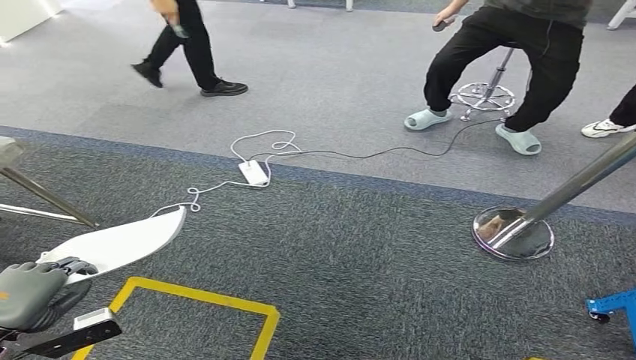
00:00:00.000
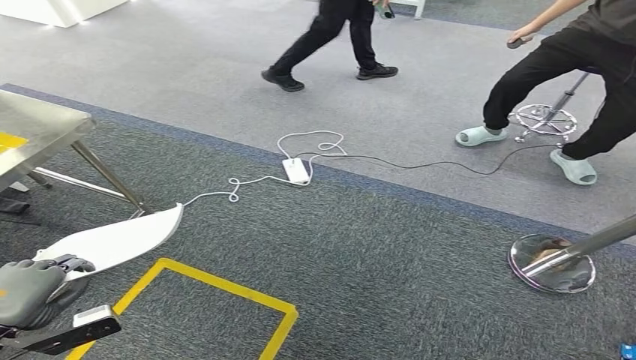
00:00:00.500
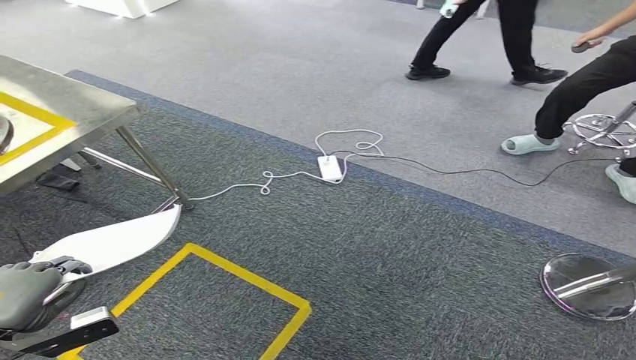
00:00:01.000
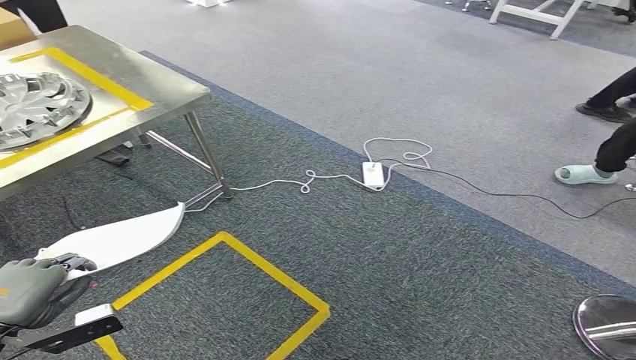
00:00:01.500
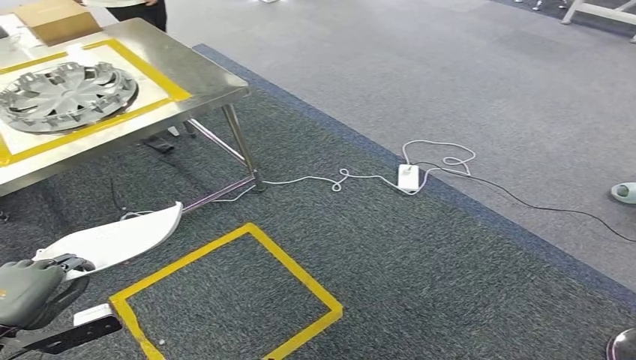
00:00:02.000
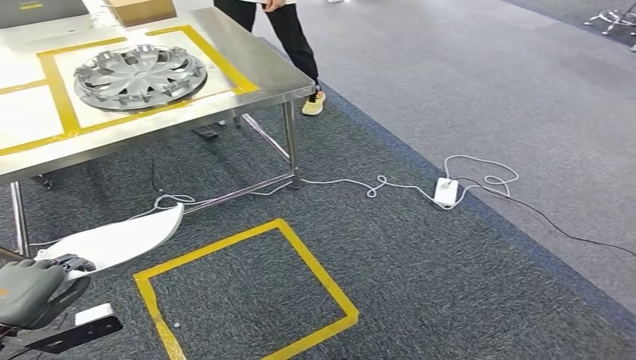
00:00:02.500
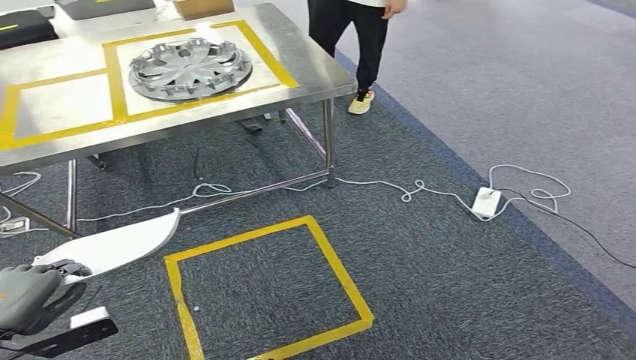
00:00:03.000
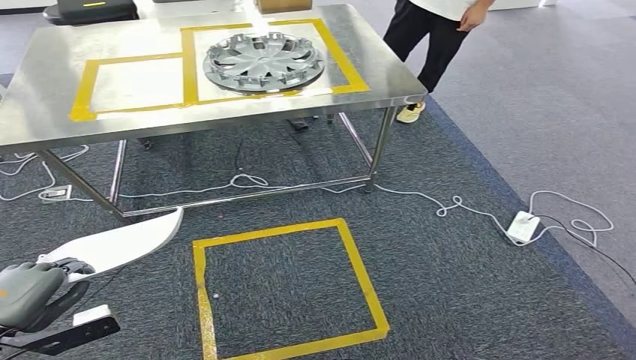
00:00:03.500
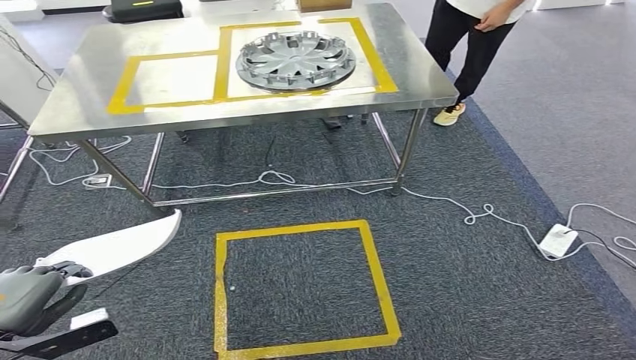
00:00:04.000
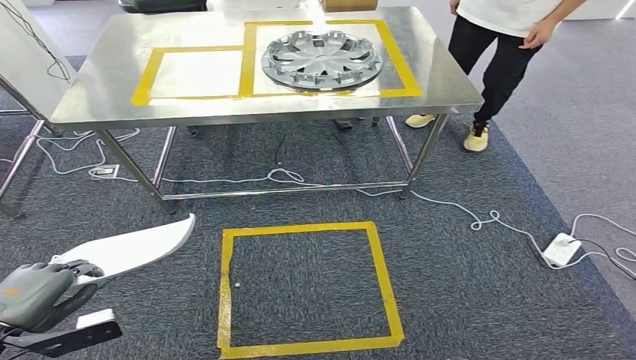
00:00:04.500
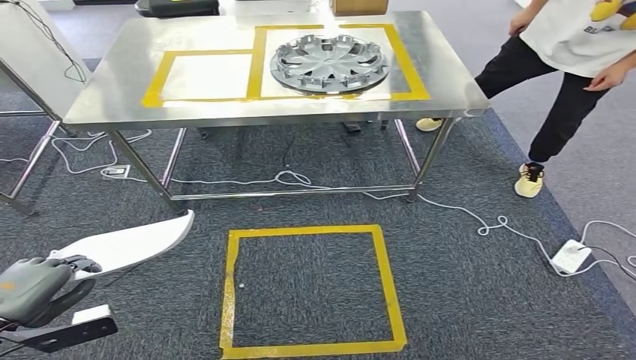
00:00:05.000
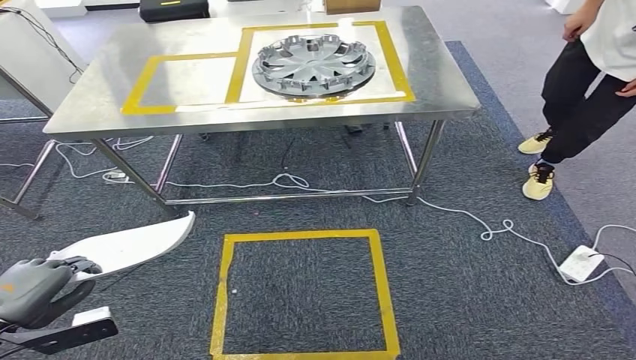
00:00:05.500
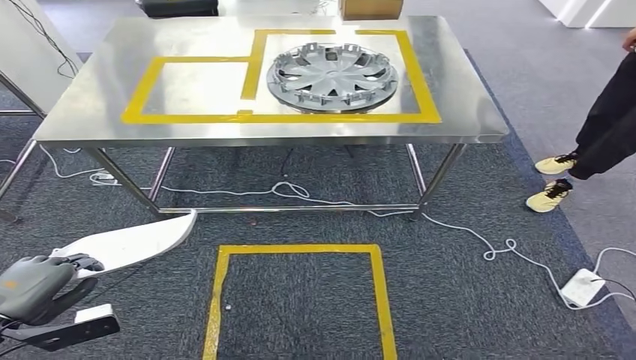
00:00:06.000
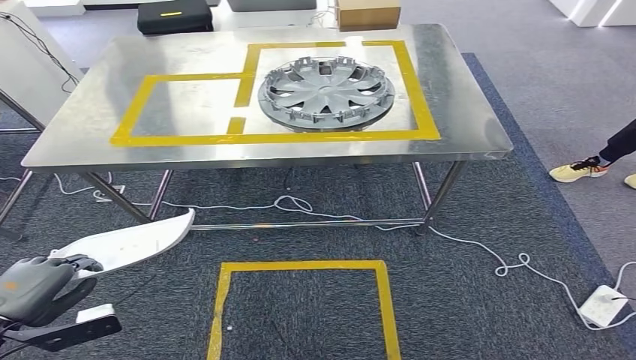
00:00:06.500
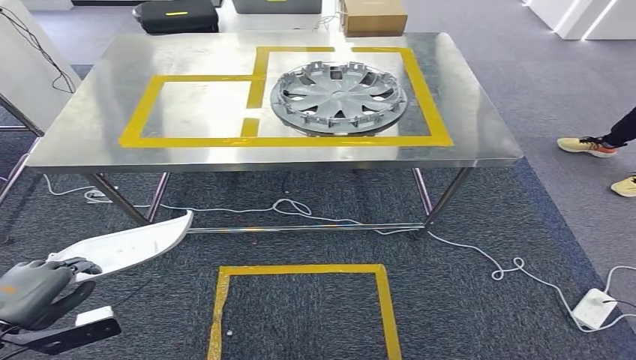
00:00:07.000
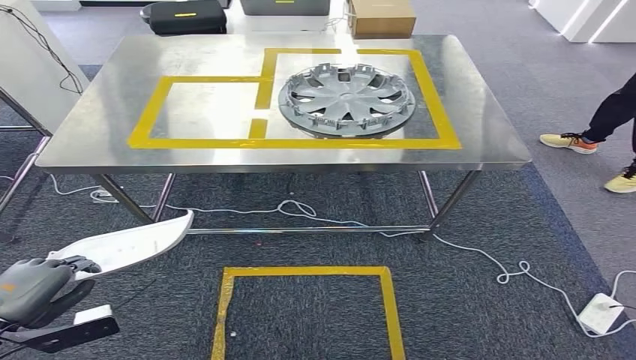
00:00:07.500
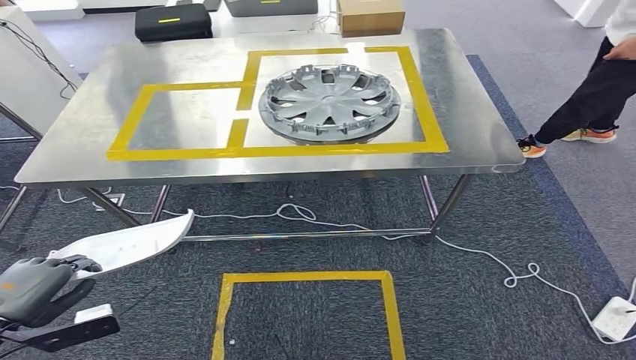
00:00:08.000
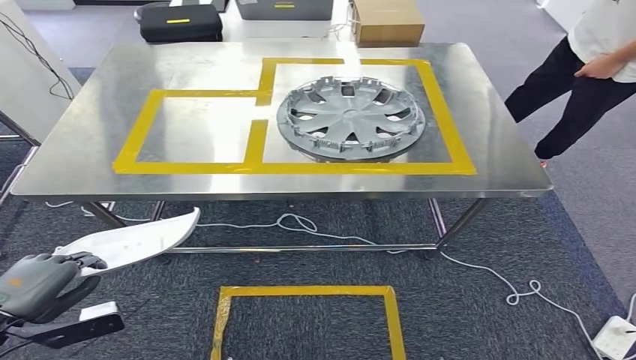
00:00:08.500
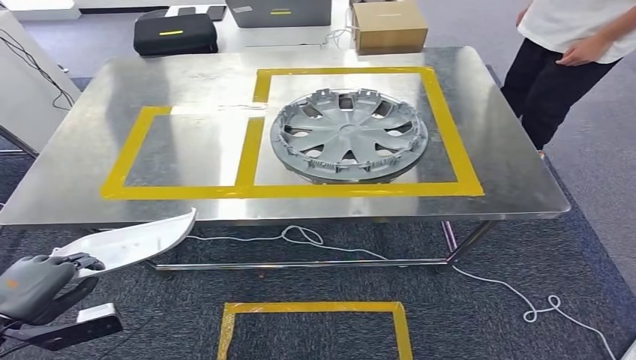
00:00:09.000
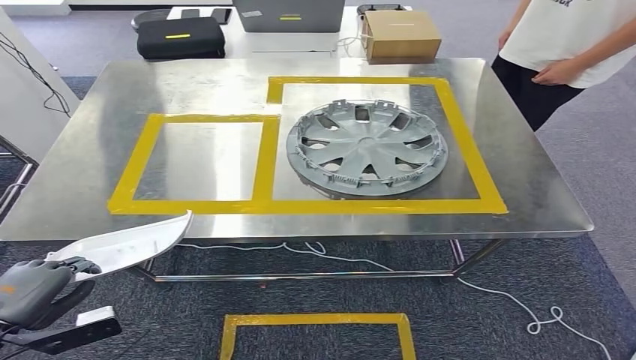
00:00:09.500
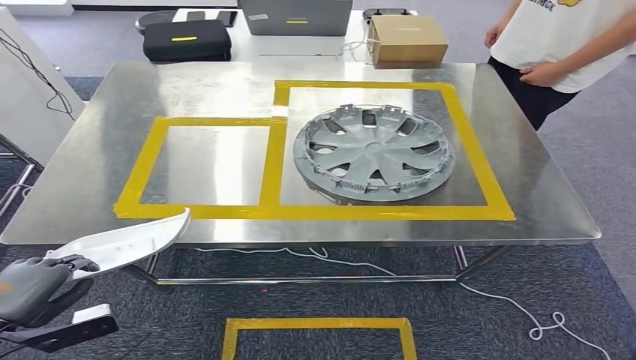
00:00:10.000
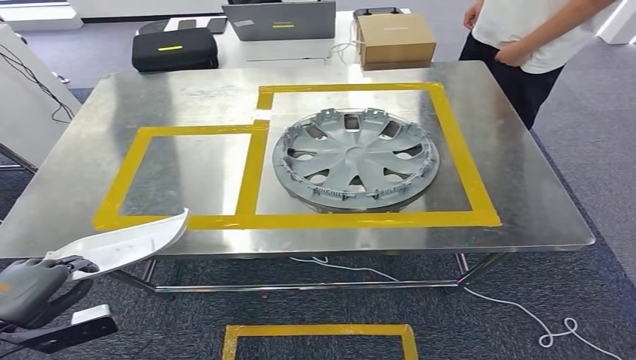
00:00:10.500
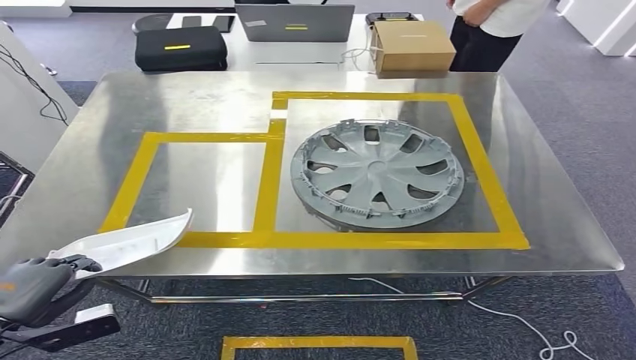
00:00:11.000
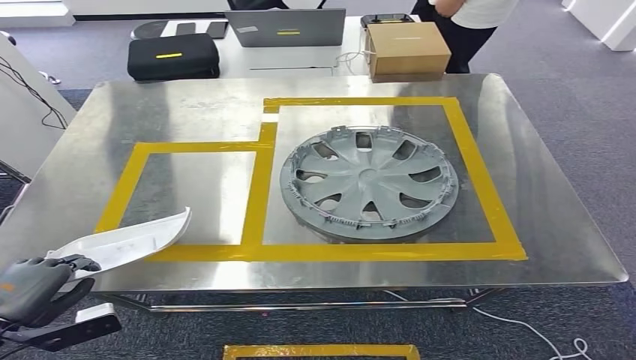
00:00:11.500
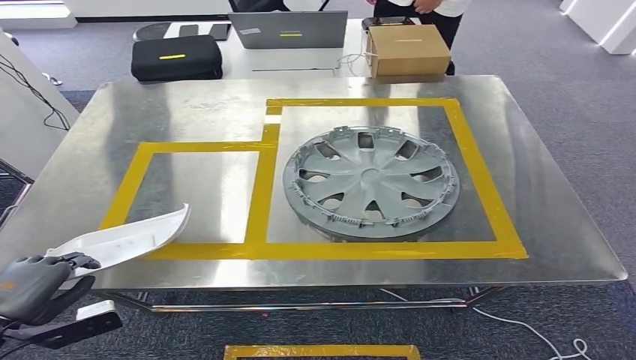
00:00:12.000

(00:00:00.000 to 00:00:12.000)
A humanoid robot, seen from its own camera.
Step, 00:00:00.000 - 00:00:11.000: Move the small component to the workbench.

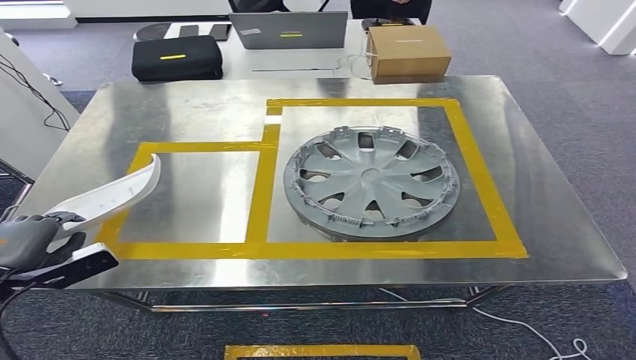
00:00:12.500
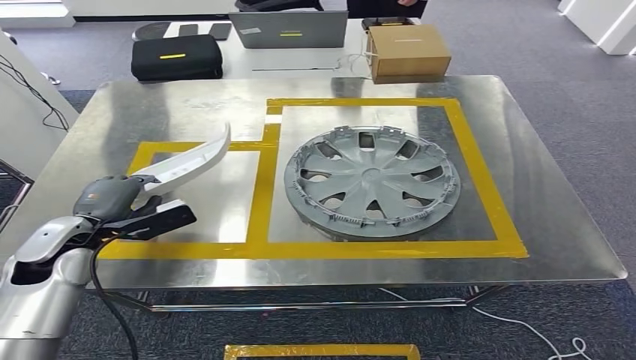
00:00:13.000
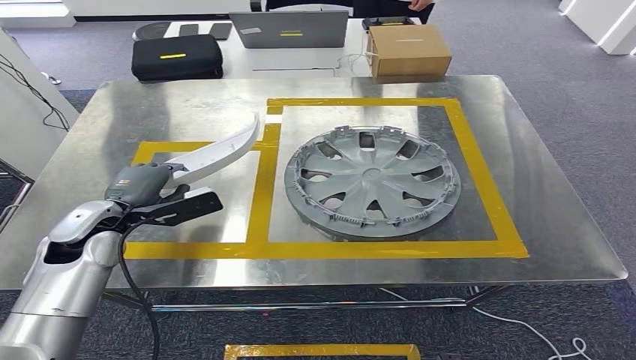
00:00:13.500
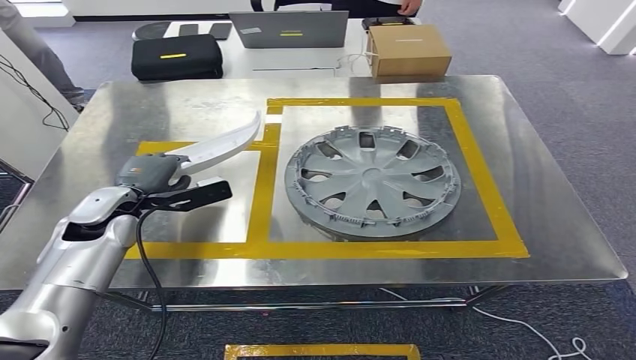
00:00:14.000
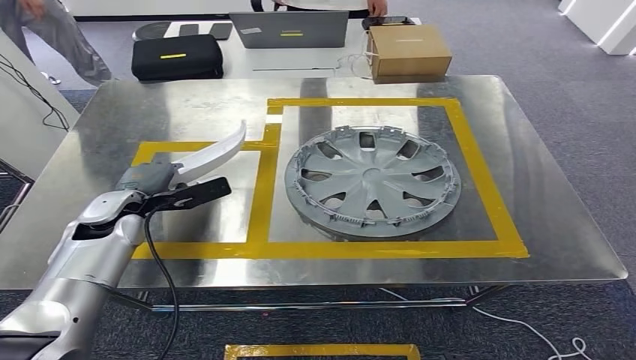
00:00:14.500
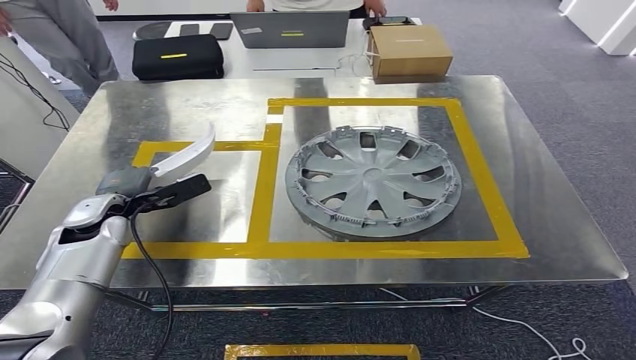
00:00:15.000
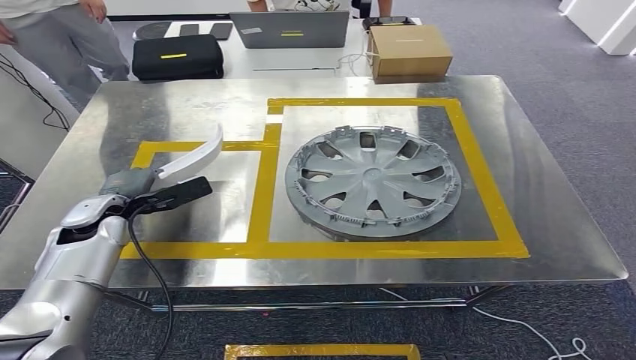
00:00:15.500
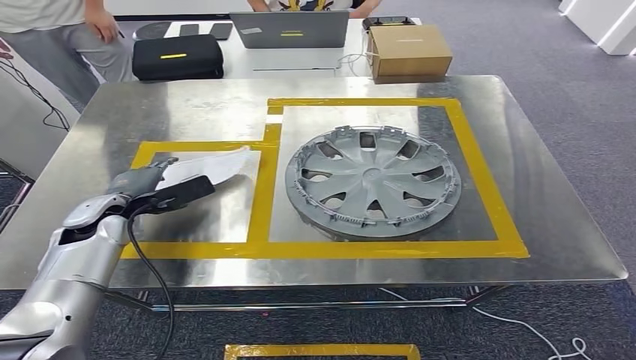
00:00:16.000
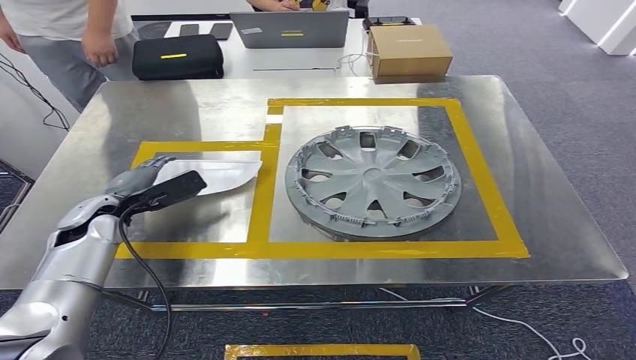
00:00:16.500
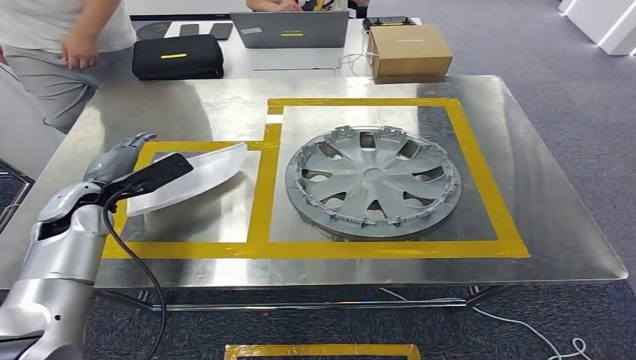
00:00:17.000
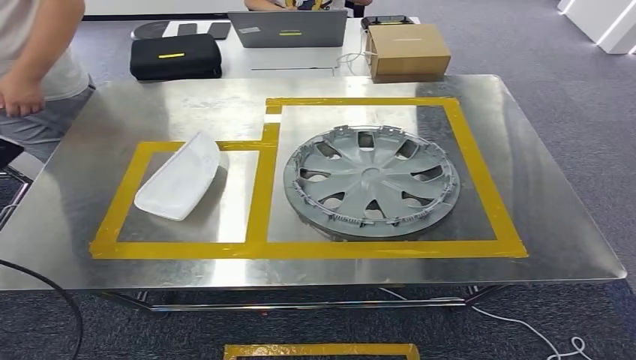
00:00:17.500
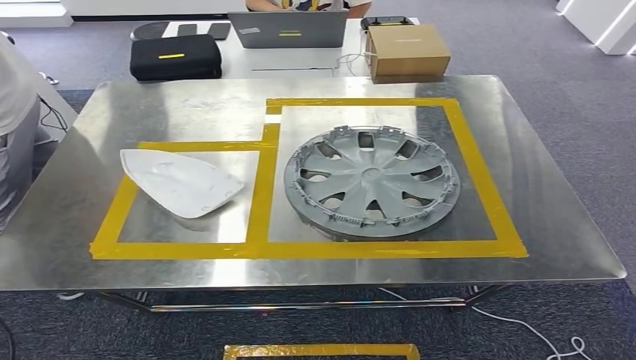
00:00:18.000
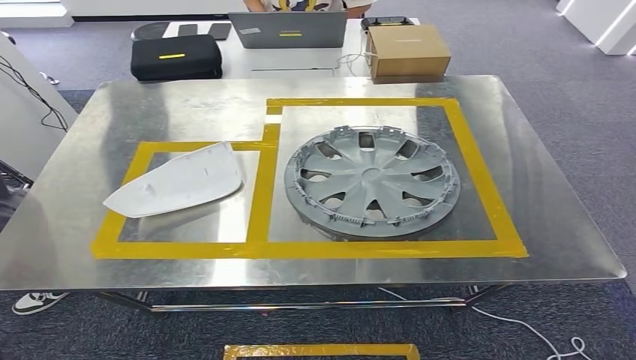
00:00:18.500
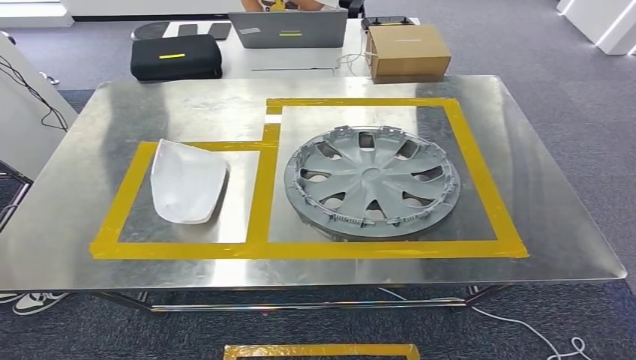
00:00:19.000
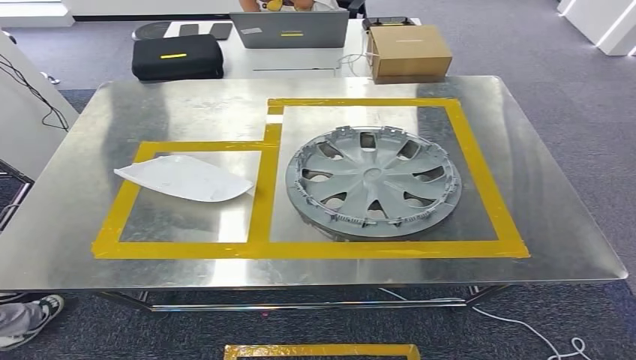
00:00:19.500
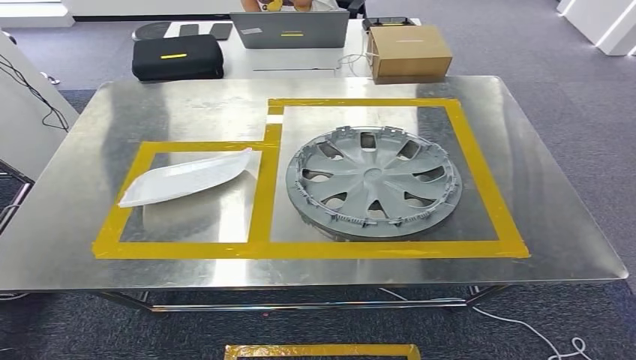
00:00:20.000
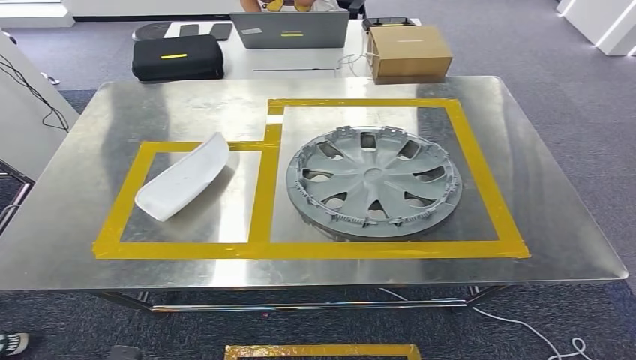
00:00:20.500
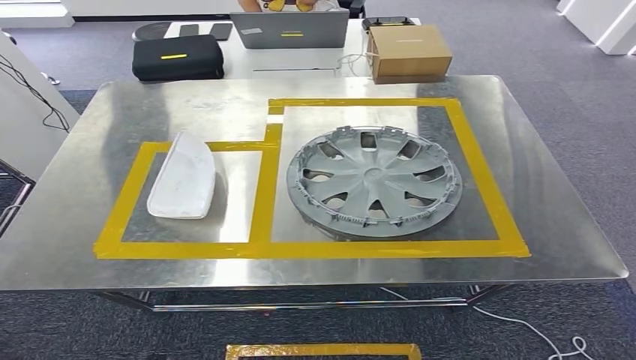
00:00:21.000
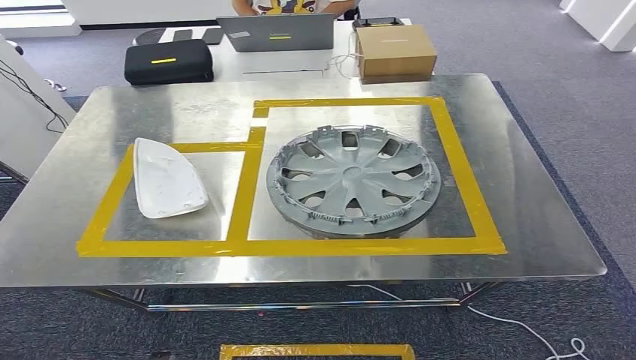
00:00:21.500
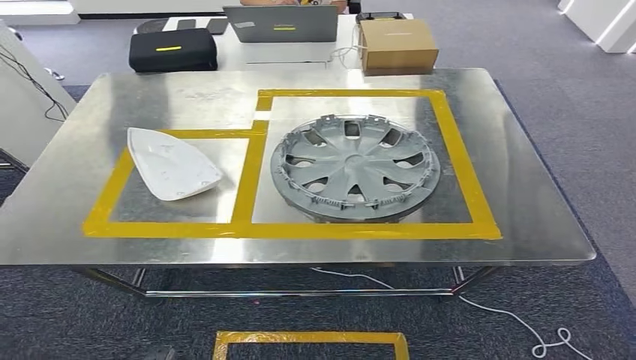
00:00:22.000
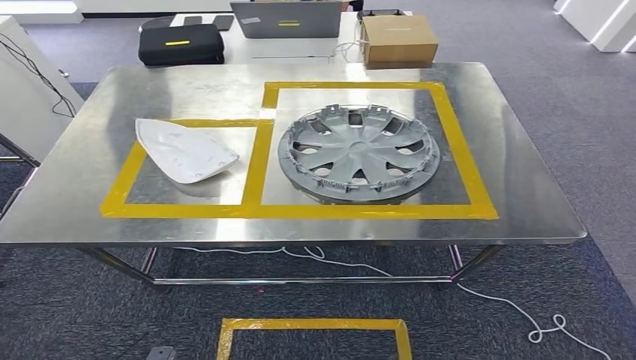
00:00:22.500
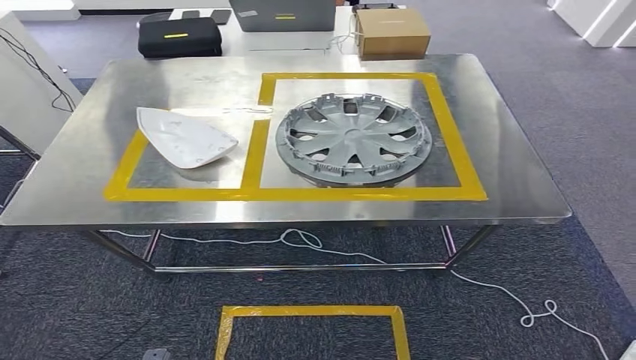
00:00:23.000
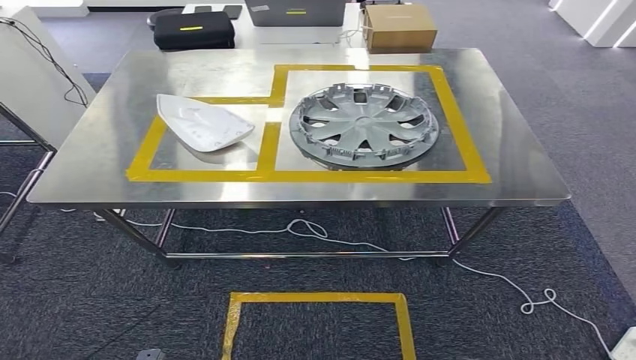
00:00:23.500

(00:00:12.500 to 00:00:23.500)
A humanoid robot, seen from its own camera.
Step, 00:00:12.500 - 00:00:19.500: Insert the small component into the corresponding slot on the workbench.
00:00:14.500 - 00:00:16.000: The hands stay close to where they were, moving slightly.
00:00:18.000 - 00:00:20.000: The left hand travels downward and backward by roughly 40 cm.
